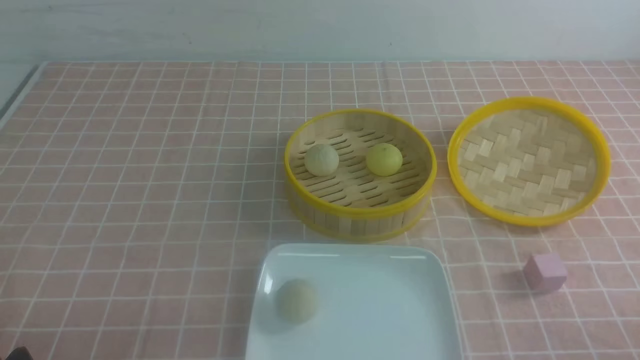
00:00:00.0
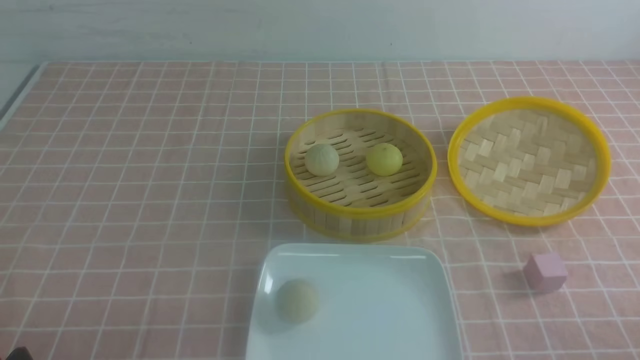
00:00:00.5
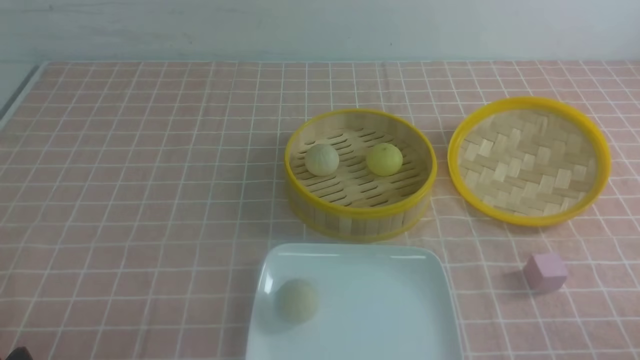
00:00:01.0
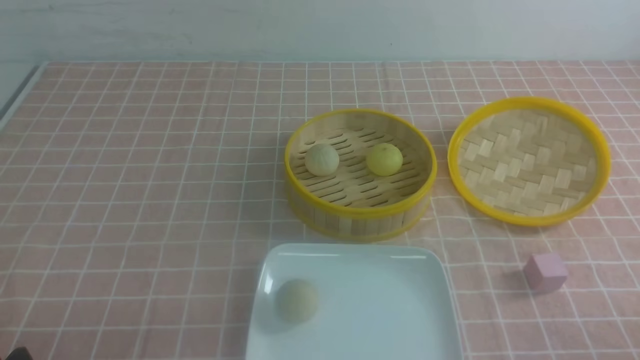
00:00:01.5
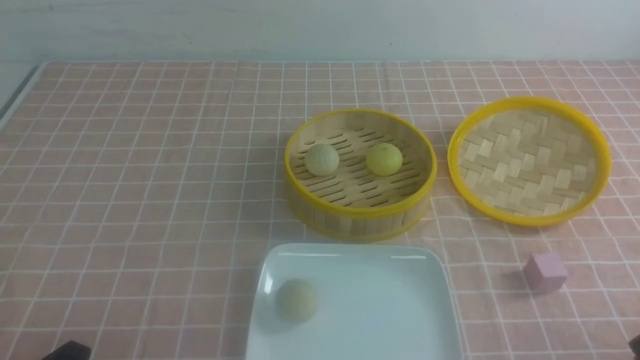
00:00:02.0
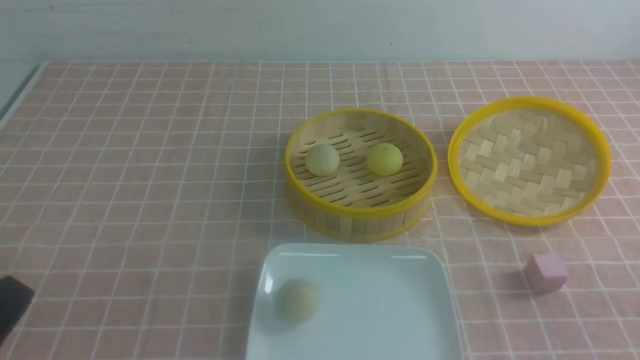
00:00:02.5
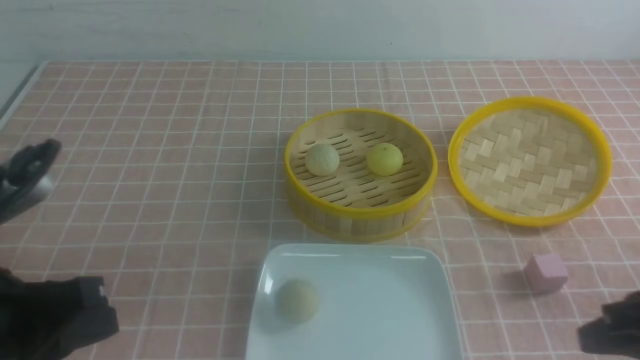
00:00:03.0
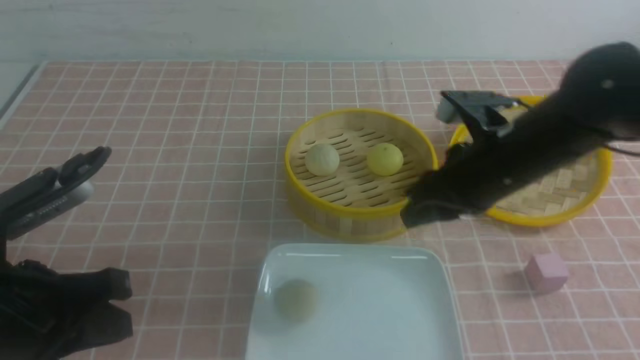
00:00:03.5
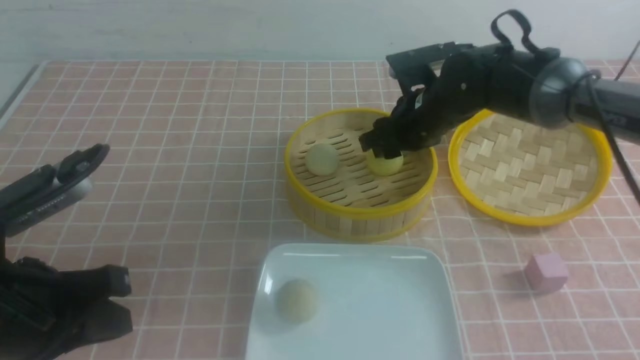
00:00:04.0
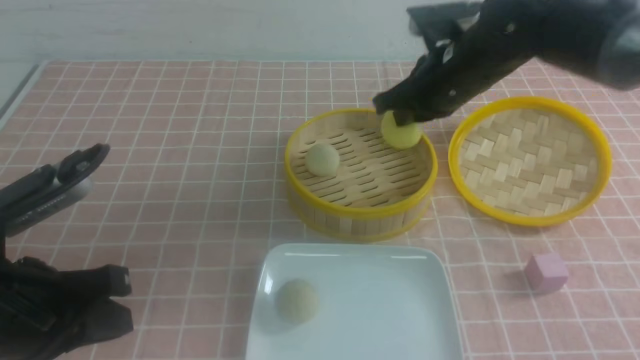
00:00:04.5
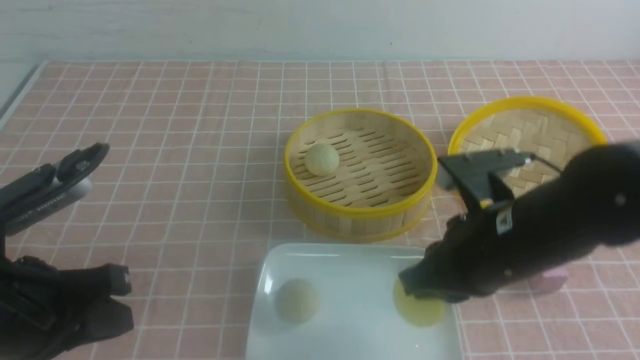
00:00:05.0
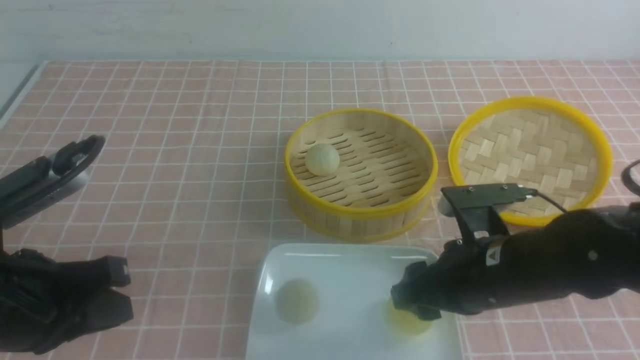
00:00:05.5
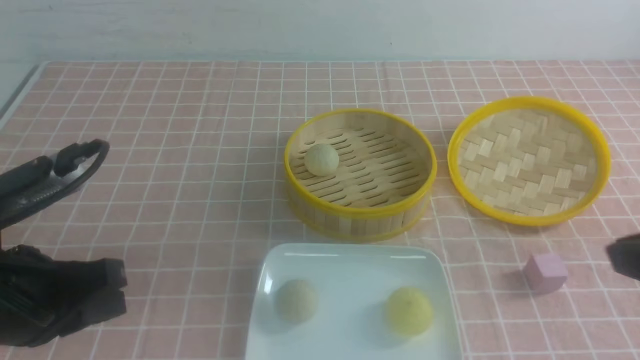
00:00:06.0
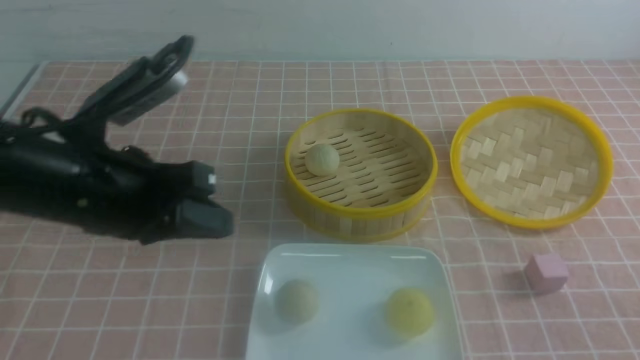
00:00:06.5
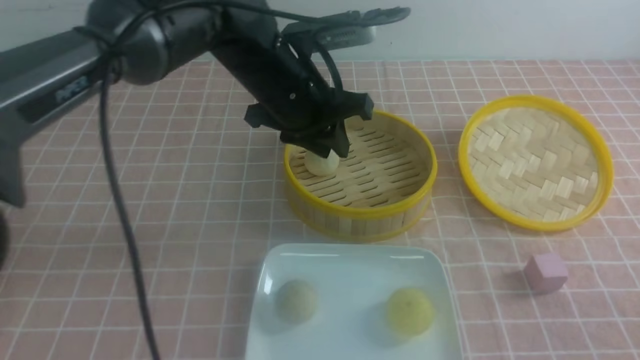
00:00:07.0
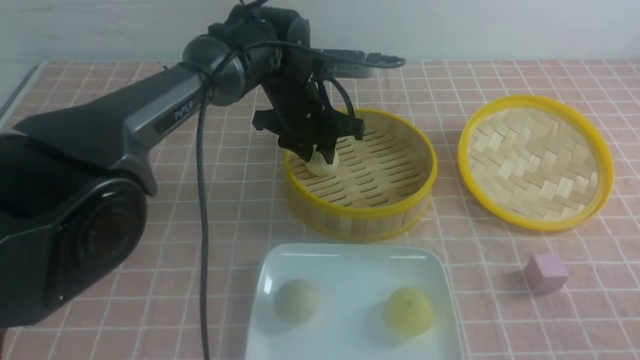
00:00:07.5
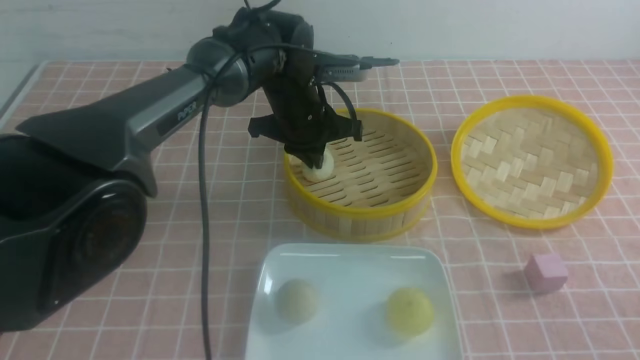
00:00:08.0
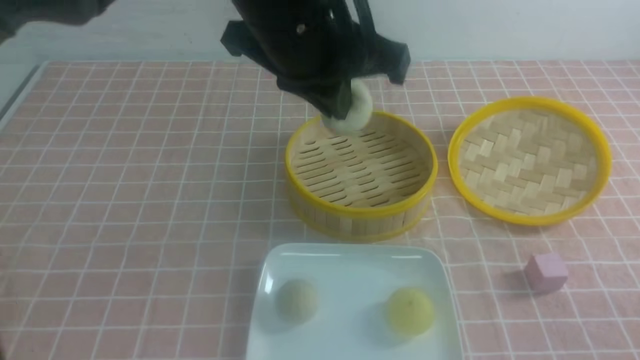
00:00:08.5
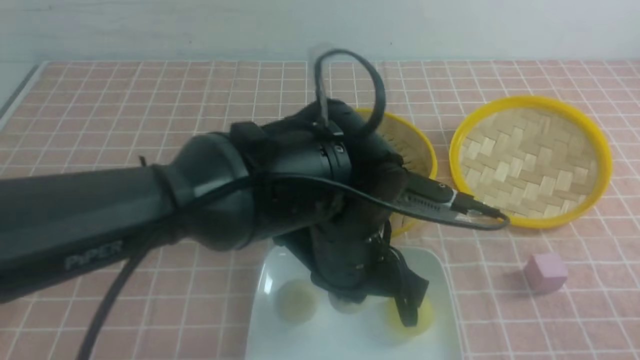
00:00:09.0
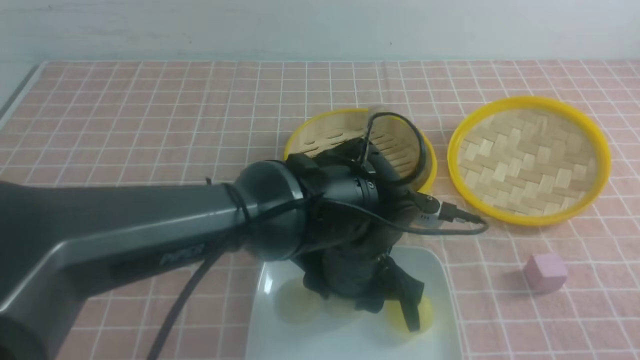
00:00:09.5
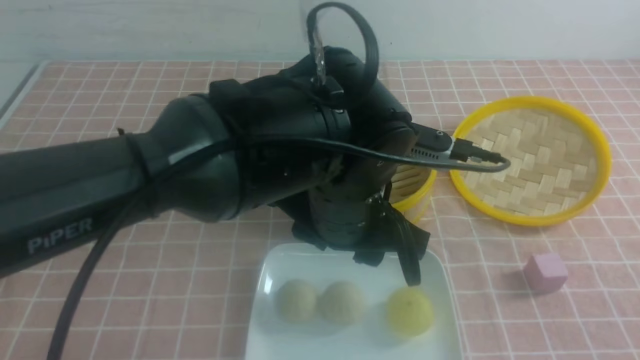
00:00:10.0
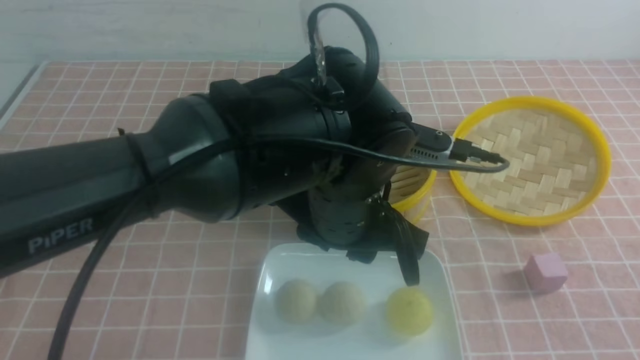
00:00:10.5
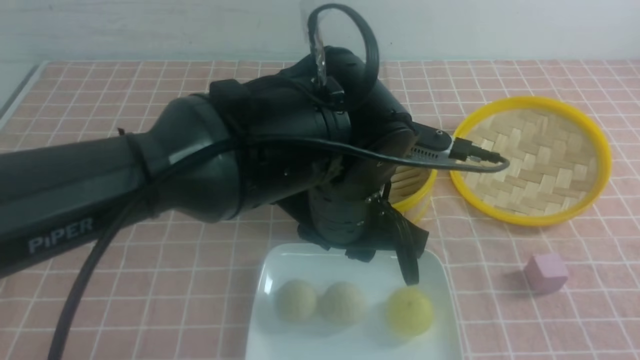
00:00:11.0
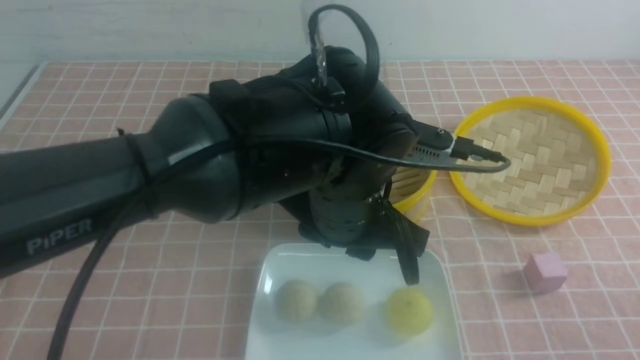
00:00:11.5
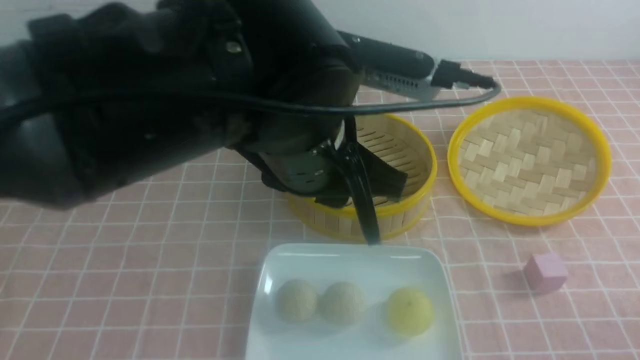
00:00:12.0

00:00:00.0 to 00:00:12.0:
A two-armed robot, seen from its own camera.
Step, 00:00:00.0 to 00:00:04.0: use the right arm to grab the steamed stuffed bun that is closest to it.
Step, 00:00:04.5 to 00:00:05.0: use the right arm to put the steamed stuffed bun into the plate.
Step, 00:00:05.5 to 00:00:07.5: use the left arm to grab the steamed stuffed bun that is closest to it.
Step, 00:00:08.0 to 00:00:09.0: use the left arm to put the steamed stuffed bun into the plate.
00:00:02.0 to 00:00:04.0: The right gripper is displaced forward and to the left by approximately 40 cm, and closes, then reopens. Meanwhile the left gripper goes roughly 15 cm forward and upward, and closes its fingers.
00:00:04.0 to 00:00:06.0: The right gripper moves backward, some 30 cm, and closes up.
00:00:06.0 to 00:00:08.0: The left gripper moves forward and to the right, approximately 35 cm, and opens and closes again. The right gripper heads downward and backward, covering roughly 10 cm.
00:00:08.0 to 00:00:10.0: The left gripper is displaced backward by some 20 cm, and opens up.
00:00:10.0 to 00:00:12.0: The left gripper is displaced upward by some 10 cm. The right gripper heads downward, covering approximately 15 cm.

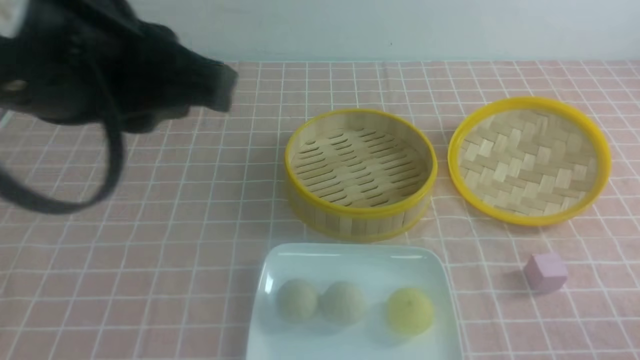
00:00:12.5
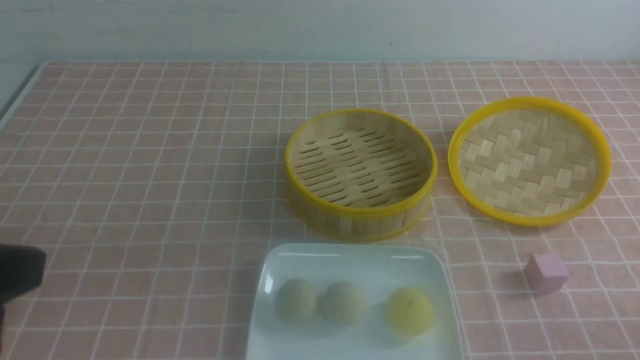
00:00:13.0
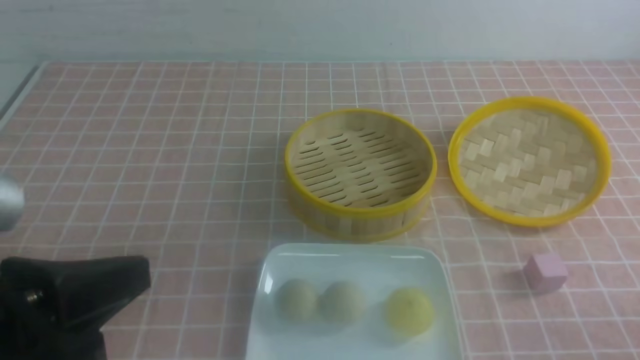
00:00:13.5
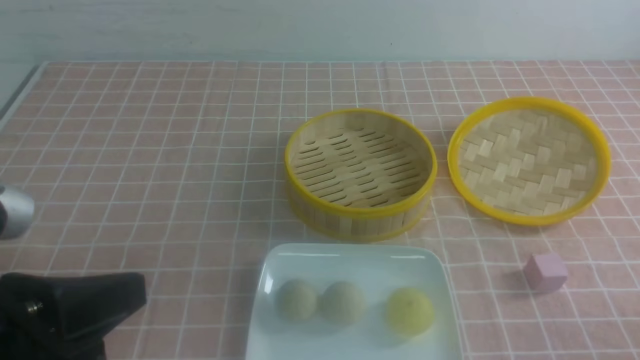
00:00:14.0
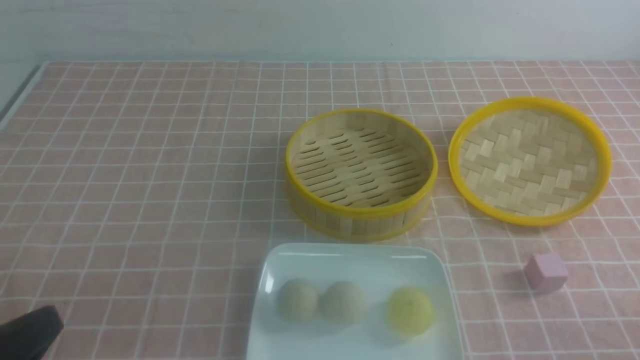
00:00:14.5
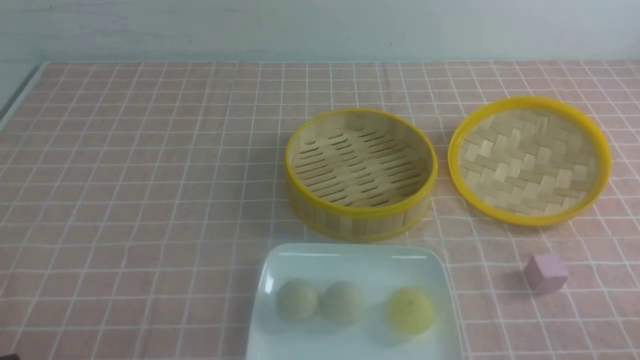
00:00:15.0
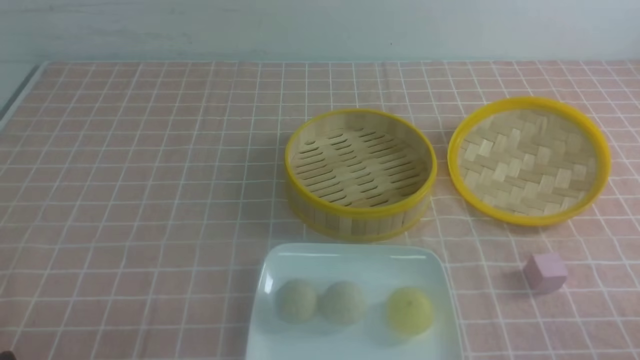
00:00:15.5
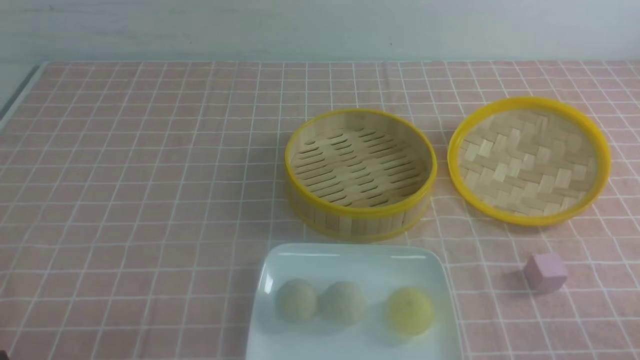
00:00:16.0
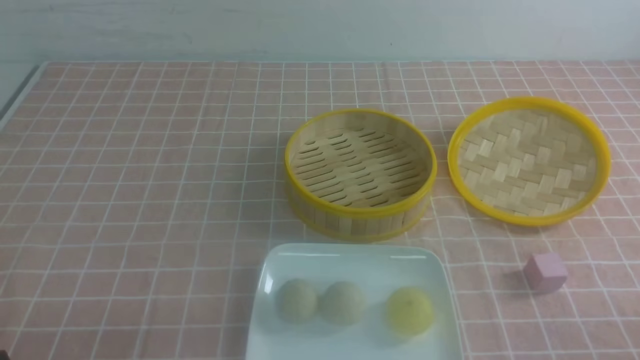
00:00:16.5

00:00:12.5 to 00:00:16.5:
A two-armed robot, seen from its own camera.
00:00:12.5 to 00:00:14.5: The left gripper goes some 25 cm downward, to the left and backward.
00:00:14.5 to 00:00:16.5: The left gripper travels downward by some 5 cm.
